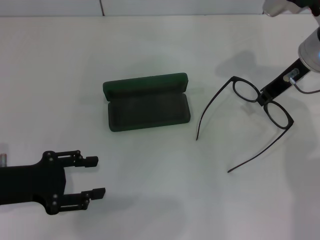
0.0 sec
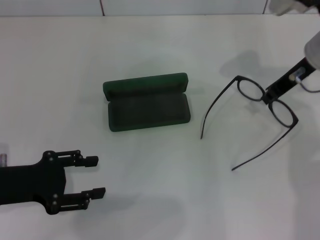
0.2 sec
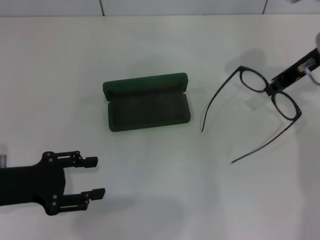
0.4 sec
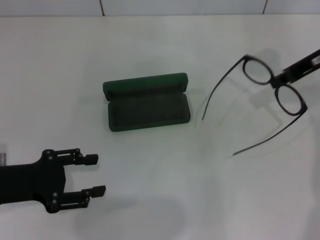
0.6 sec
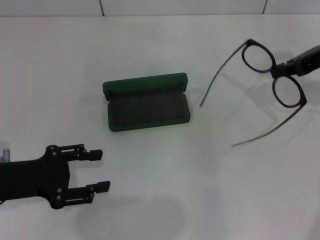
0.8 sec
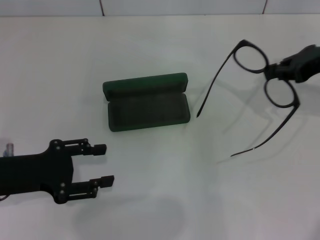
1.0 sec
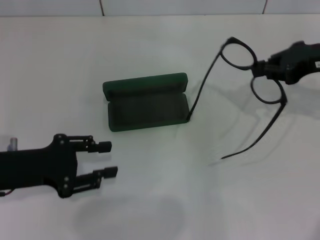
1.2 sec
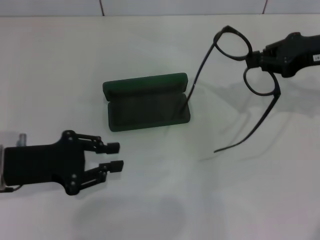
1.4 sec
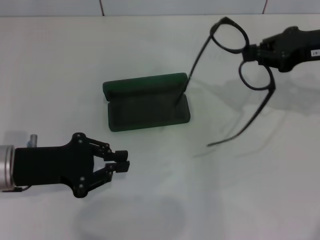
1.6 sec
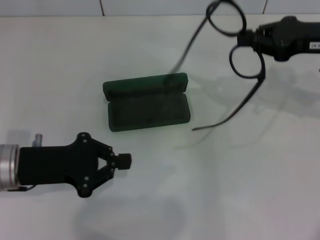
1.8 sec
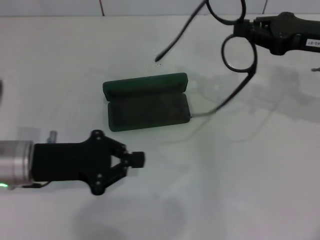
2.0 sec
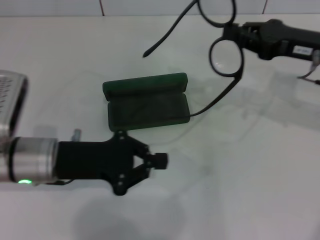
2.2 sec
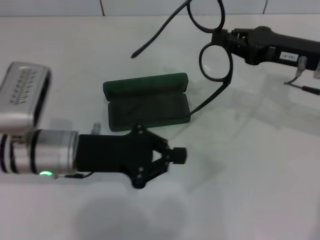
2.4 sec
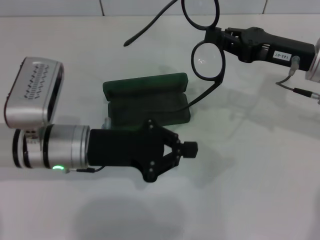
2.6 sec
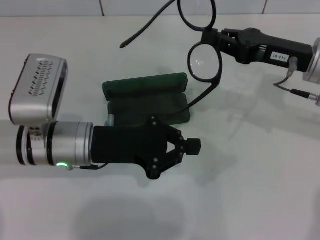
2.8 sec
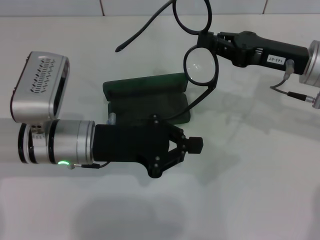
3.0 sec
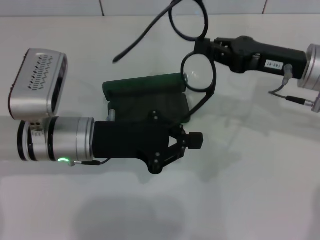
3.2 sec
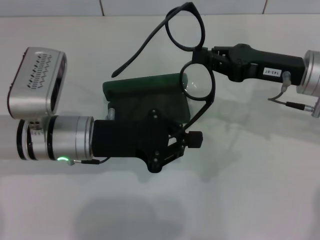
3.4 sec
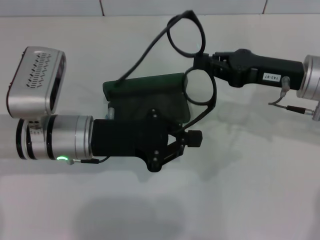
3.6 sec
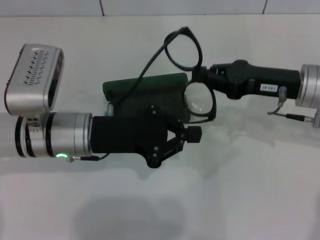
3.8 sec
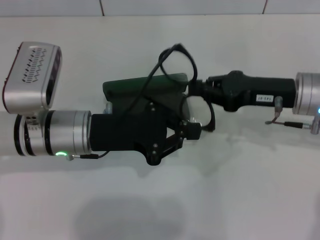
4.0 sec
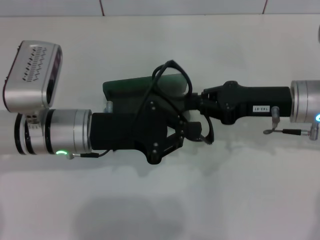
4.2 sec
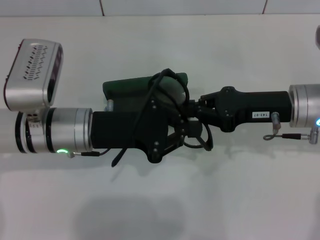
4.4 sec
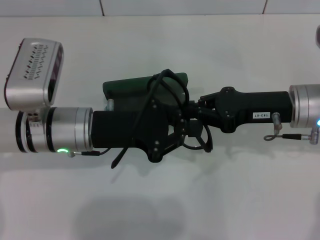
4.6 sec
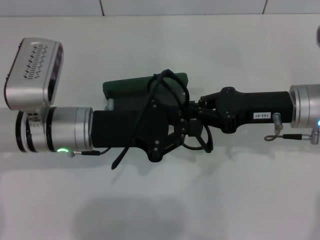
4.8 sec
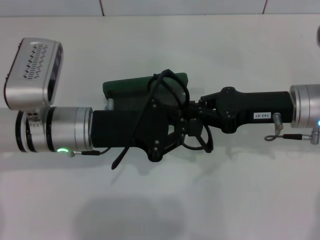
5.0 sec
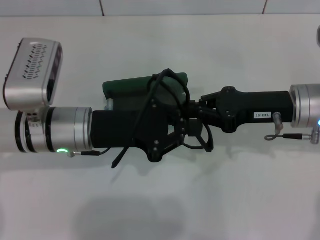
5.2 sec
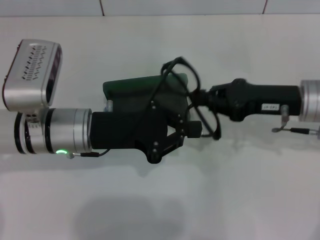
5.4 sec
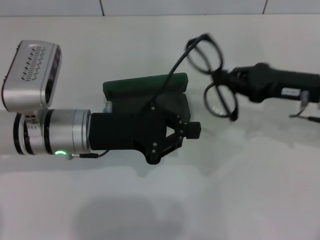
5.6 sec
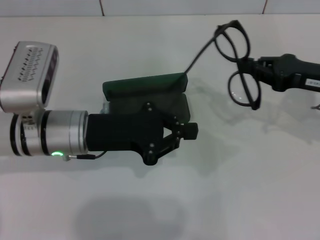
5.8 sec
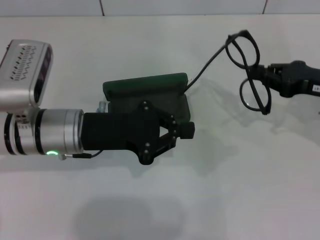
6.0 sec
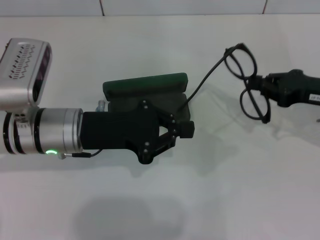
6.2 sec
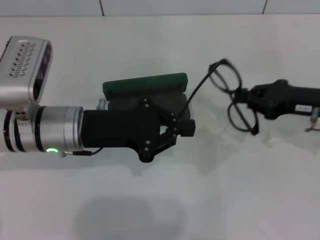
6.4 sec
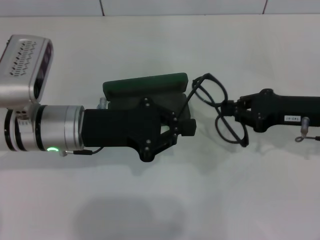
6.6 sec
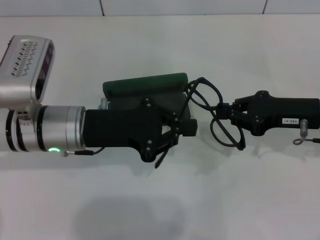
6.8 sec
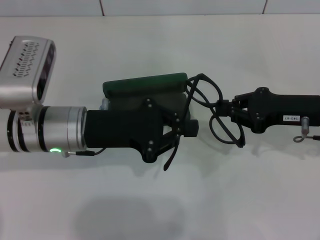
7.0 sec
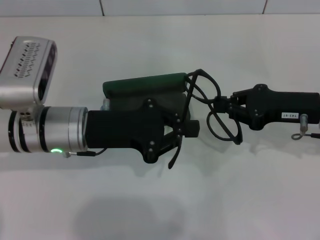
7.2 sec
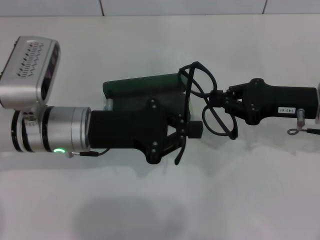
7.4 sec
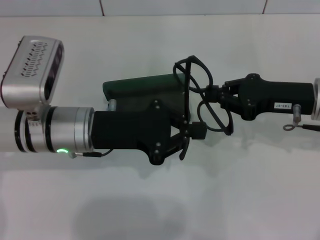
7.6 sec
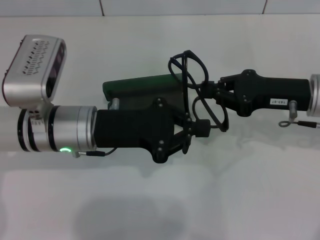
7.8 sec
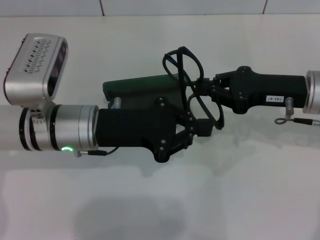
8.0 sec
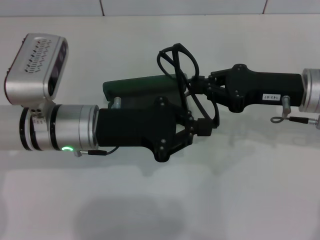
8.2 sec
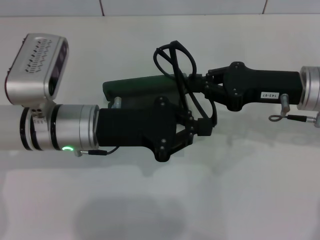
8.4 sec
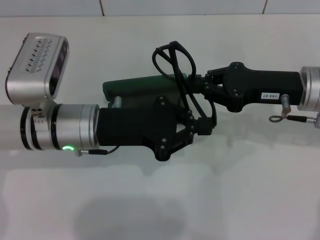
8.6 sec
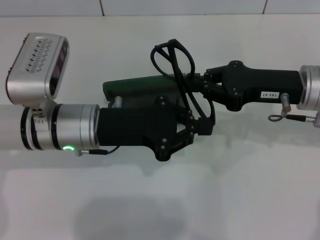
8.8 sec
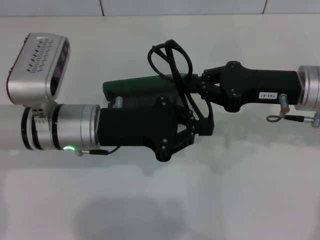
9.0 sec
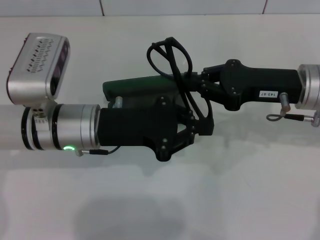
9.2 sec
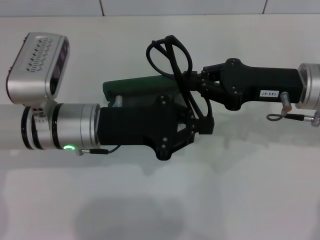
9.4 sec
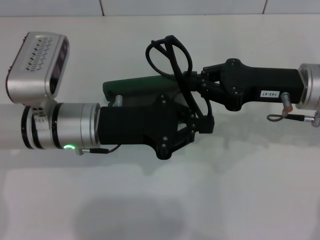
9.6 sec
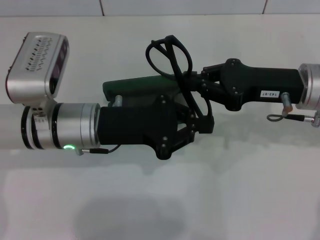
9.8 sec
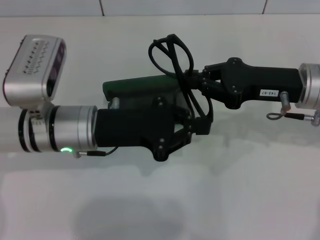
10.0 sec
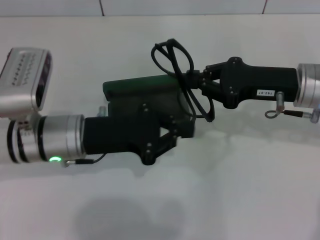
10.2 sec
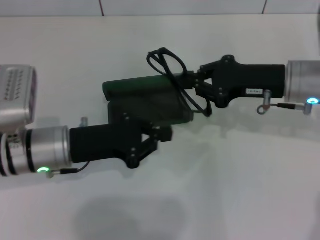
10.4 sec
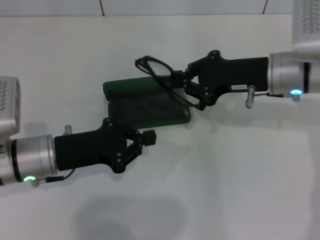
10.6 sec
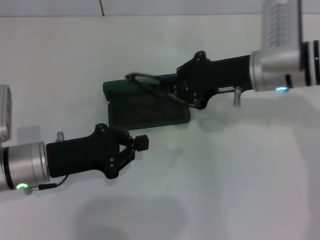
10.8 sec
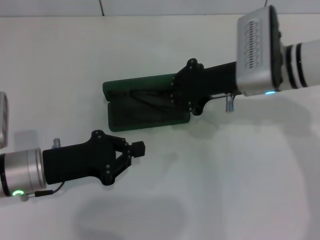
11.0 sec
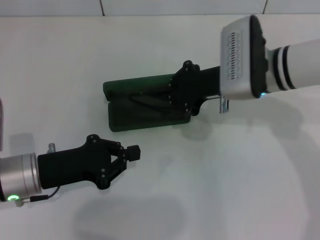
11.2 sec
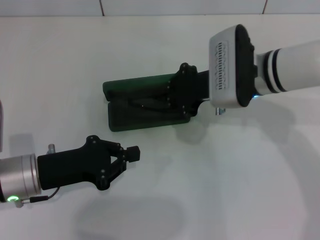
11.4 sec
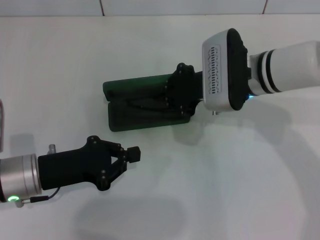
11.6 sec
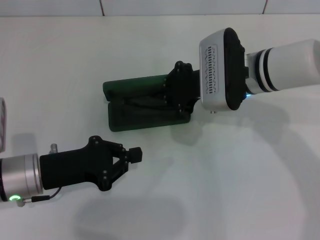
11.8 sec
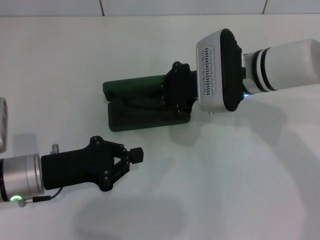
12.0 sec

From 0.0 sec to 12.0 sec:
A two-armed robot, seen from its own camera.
Step, from 0.0 sec to 9.8 sec: Fold the frame with your left hand.
From 0.0 sec to 1.6 sec: The left gripper closes. Meanwhile the right gripper moves to the right, about 5 cm.
From 1.6 sec to 3.0 sec: The right gripper shifts some 5 cm to the left and downward. Meanwhile the left gripper goes roughly 10 cm to the right, and closes up.
From 4.4 sec to 6.0 sec: The right gripper travels to the right by roughly 10 cm.
From 6.0 sec to 7.6 sec: The right gripper is displaced to the left by some 5 cm.
From 7.6 sec to 9.0 sec: The grippers make only small movements.
From 9.0 sec to 10.4 sec: The left gripper moves approximately 5 cm.
From 10.4 sec to 12.0 sec: The right gripper shifts about 10 cm to the left. Meanwhile the left gripper ends up about 5 cm from where it was.

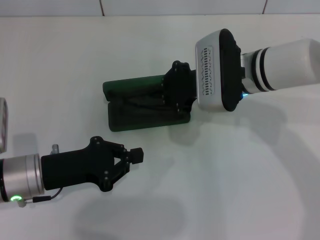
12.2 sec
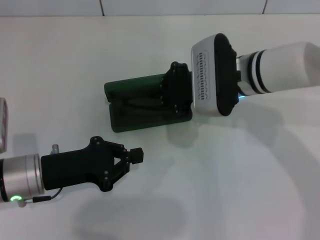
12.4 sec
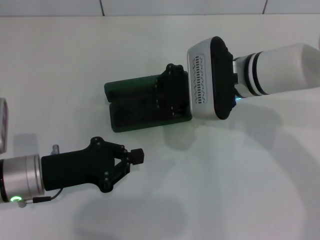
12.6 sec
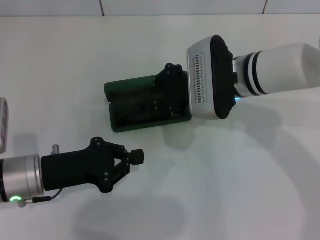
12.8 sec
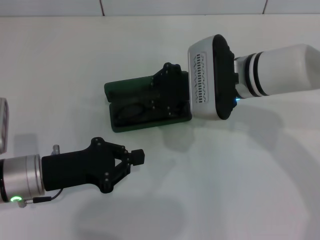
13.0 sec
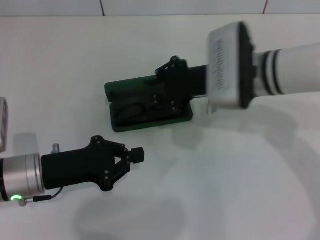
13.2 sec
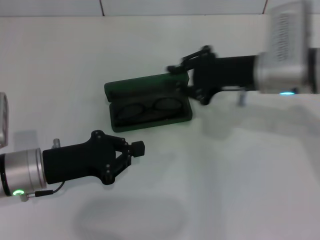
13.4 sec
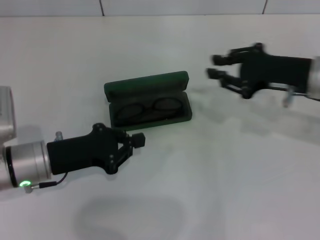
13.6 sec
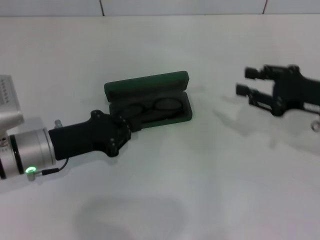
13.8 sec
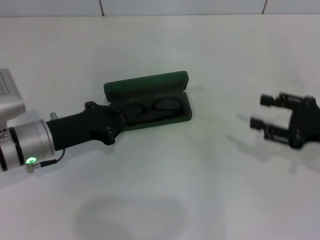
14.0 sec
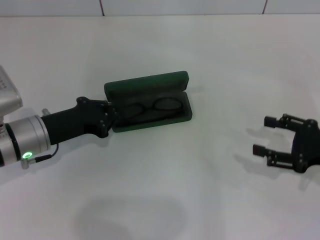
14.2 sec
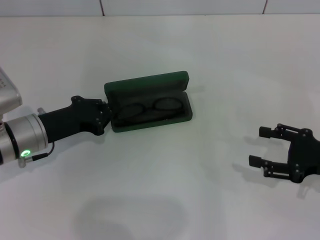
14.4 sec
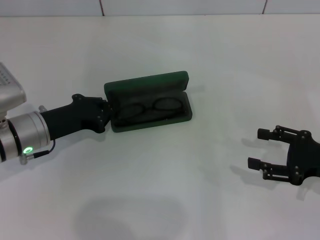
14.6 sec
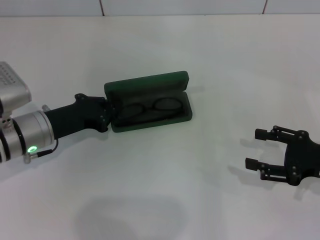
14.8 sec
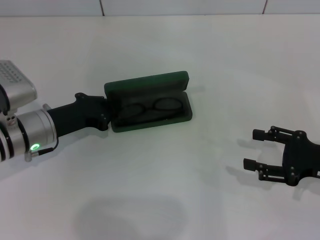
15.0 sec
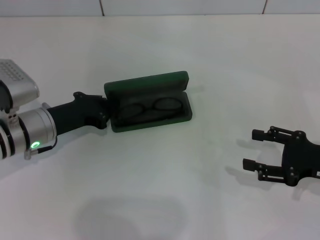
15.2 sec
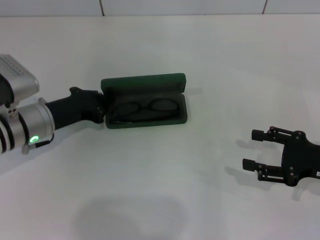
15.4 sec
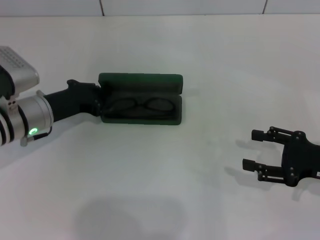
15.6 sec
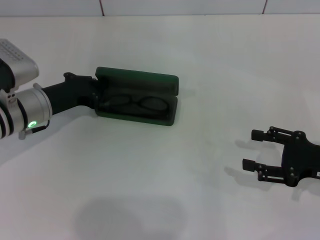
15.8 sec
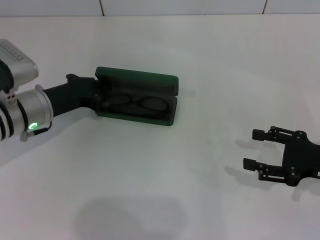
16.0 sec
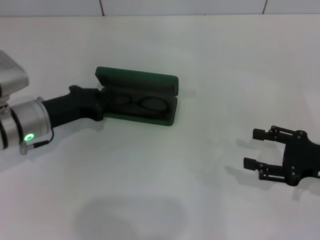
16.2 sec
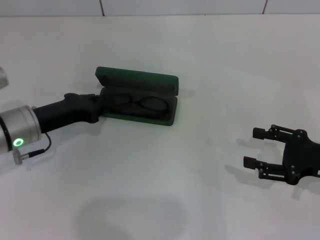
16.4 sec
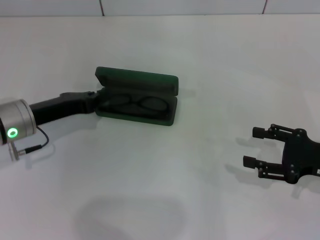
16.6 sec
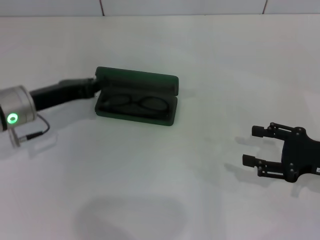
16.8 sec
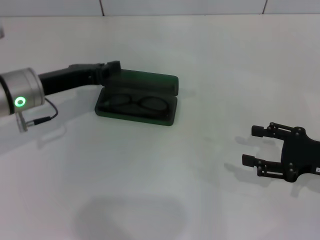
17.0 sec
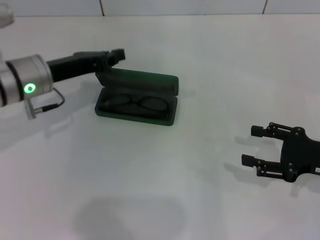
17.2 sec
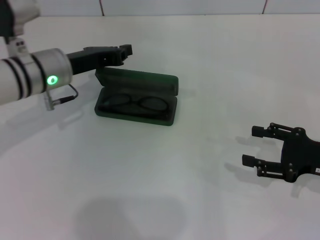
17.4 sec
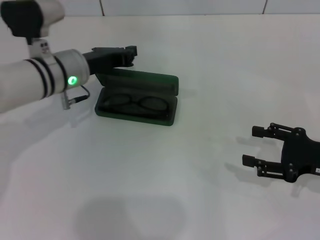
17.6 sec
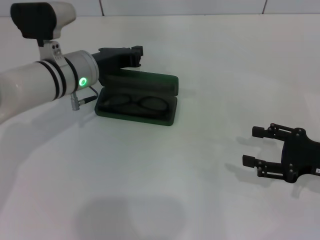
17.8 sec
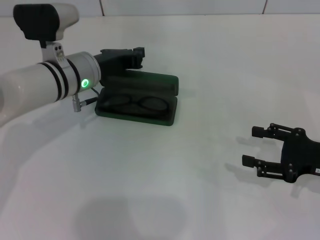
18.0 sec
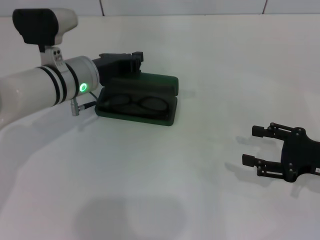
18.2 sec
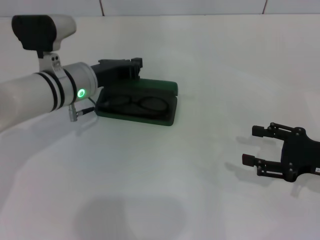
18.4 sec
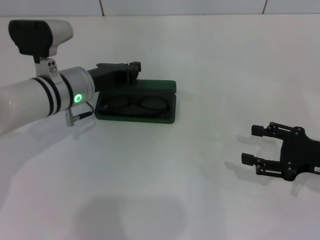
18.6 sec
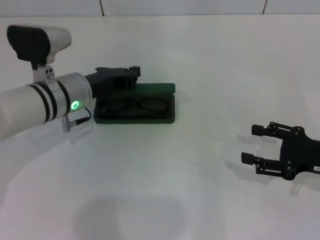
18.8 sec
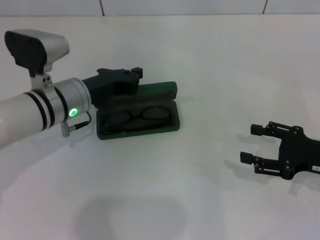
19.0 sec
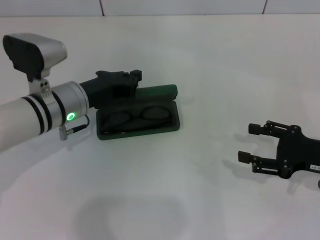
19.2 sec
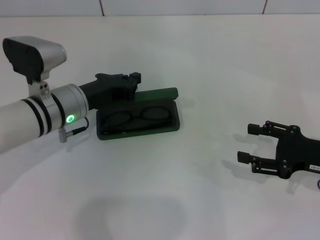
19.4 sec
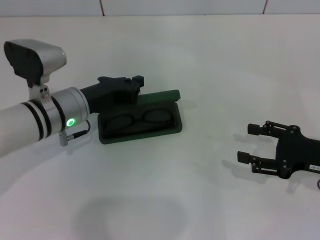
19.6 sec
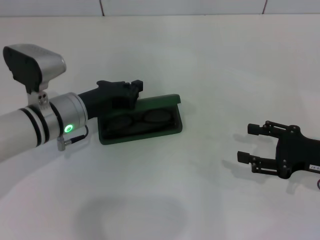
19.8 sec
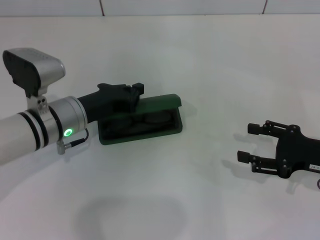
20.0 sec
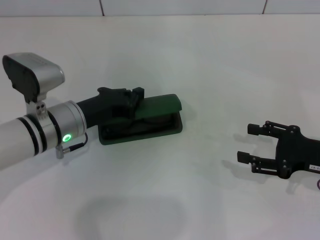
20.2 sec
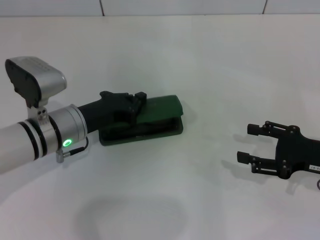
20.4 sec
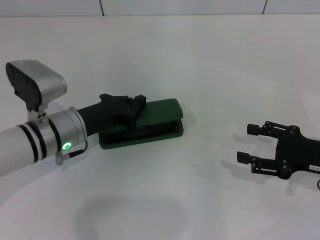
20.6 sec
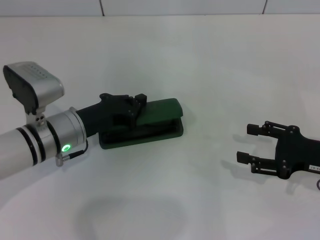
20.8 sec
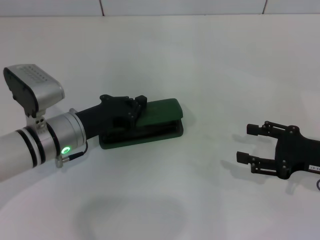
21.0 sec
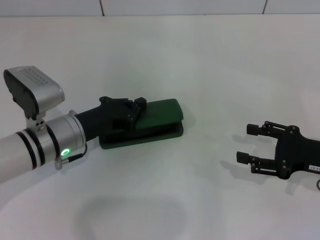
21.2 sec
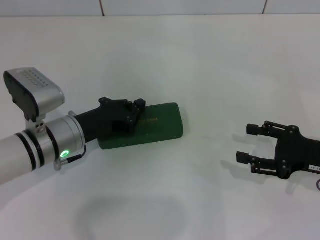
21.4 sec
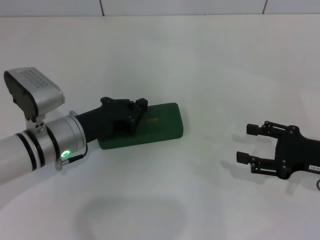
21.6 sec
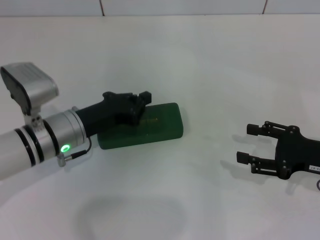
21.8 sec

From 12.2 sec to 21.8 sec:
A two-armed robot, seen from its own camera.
Step, from 13.0 sec to 21.6 sec: Close the glasses case with your left hand.
From 12.2 sec to 13.8 sec: The right gripper is displaced to the right by about 20 cm.
From 13.8 sec to 15.4 sec: The right gripper travels backward by approximately 5 cm, and opens.
From 15.4 sec to 17.0 sec: The left gripper moves upward, roughly 5 cm.
From 17.0 sec to 18.6 sec: The left gripper goes some 5 cm to the right.
From 18.6 sec to 20.2 sec: The left gripper changes place by about 5 cm.
From 20.2 sec to 21.8 sec: The grippers stay close to where they were, moving slightly.

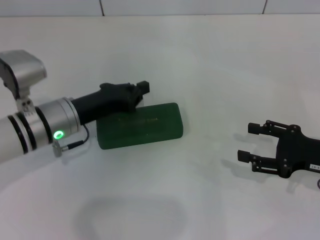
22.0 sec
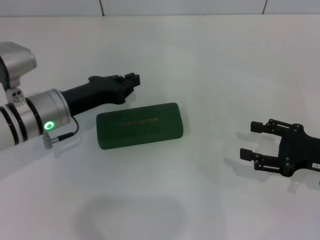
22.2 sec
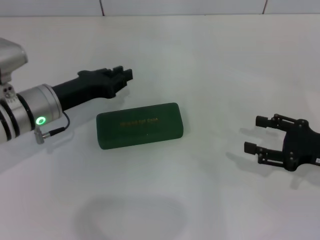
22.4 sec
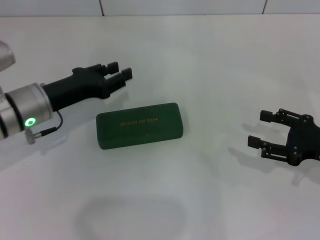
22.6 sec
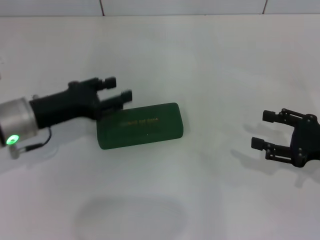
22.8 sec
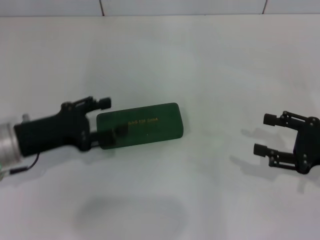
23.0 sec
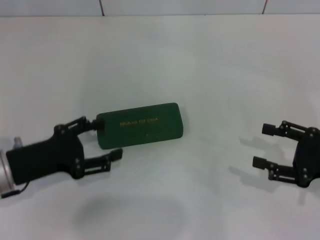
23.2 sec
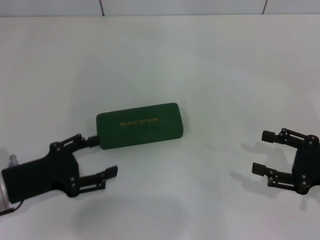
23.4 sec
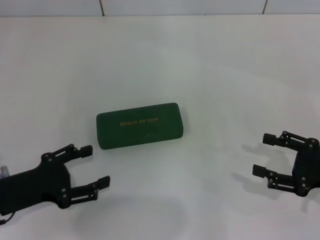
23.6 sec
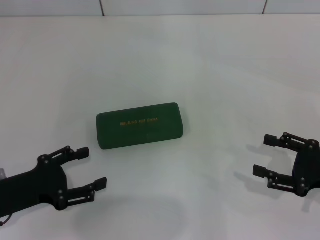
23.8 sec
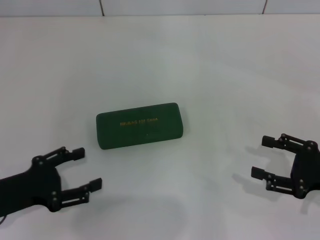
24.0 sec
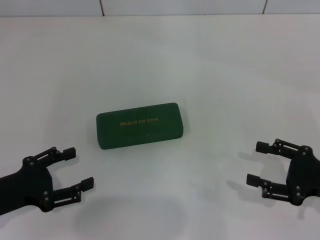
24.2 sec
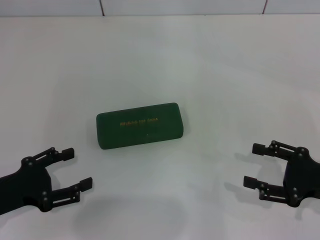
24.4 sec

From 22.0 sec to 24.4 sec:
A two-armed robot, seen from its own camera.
From 22.0 sec to 23.2 sec: The left gripper travels backward and to the left by roughly 10 cm, and opens its fingers.
From 23.2 sec to 24.4 sec: The left gripper ends up approximately 5 cm from where it was.
